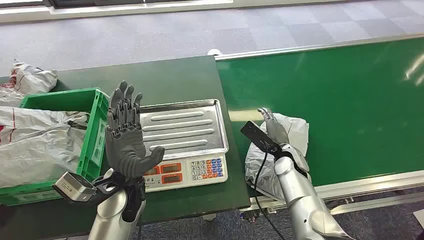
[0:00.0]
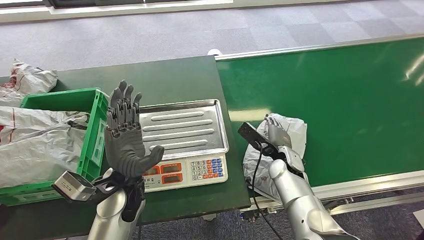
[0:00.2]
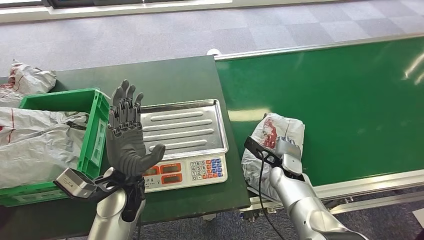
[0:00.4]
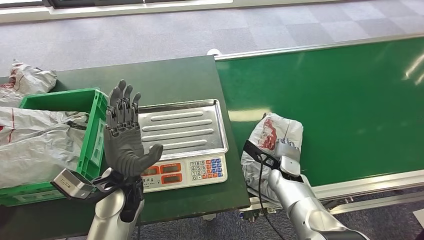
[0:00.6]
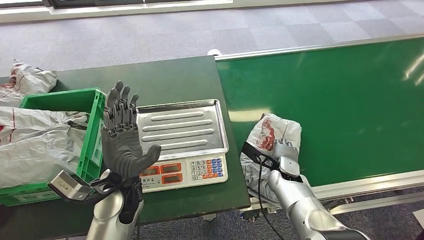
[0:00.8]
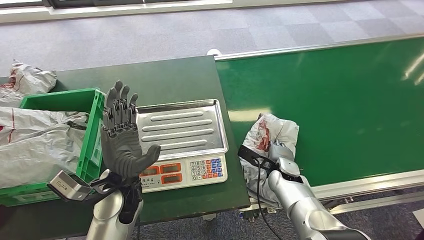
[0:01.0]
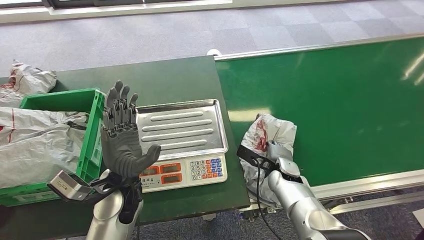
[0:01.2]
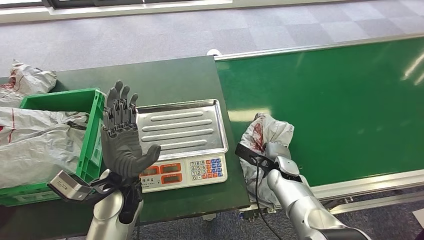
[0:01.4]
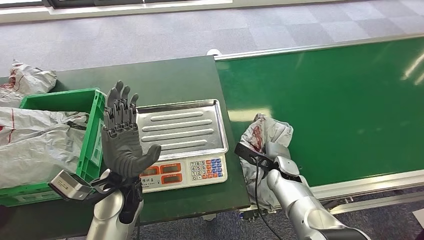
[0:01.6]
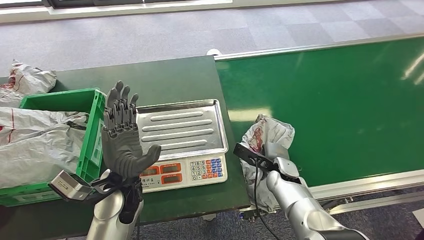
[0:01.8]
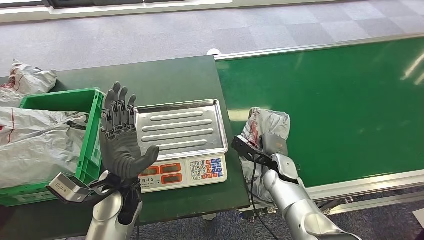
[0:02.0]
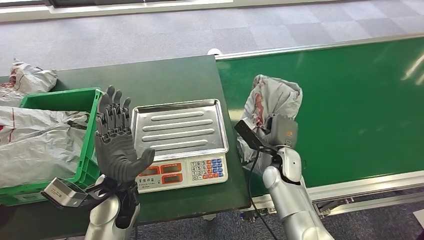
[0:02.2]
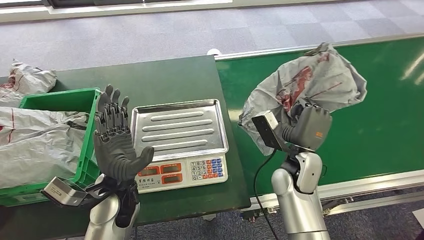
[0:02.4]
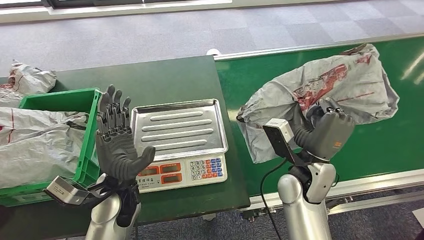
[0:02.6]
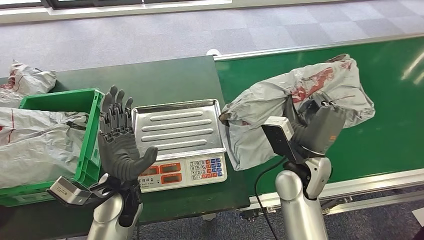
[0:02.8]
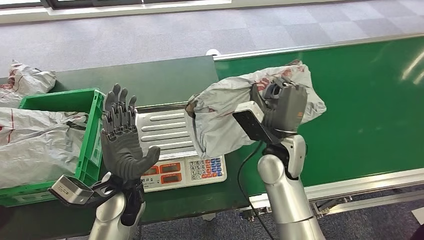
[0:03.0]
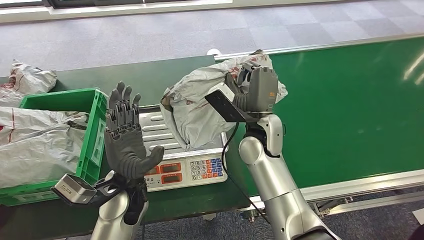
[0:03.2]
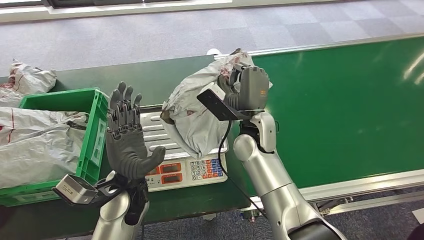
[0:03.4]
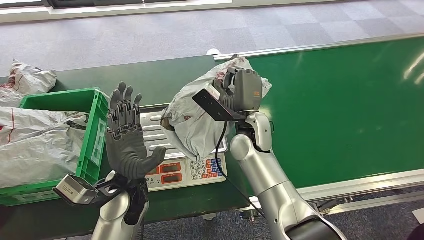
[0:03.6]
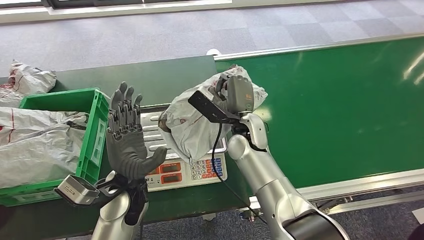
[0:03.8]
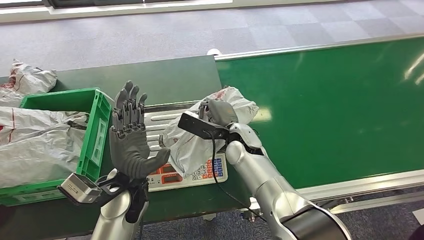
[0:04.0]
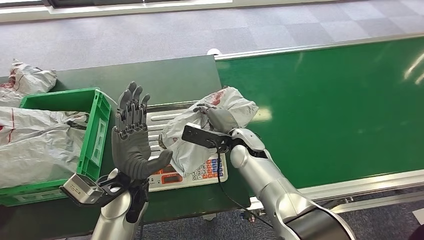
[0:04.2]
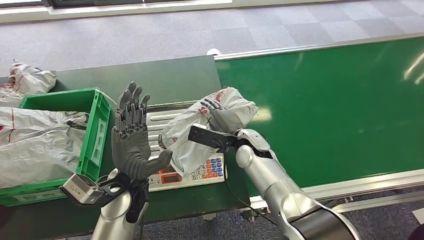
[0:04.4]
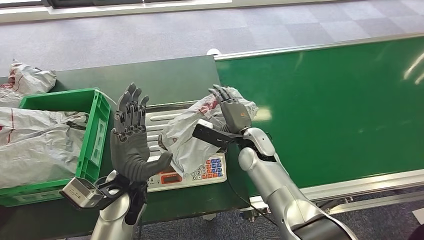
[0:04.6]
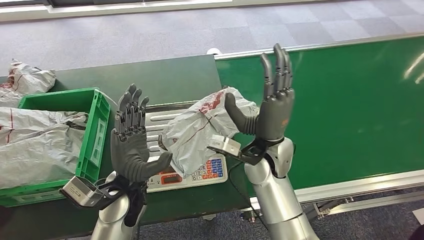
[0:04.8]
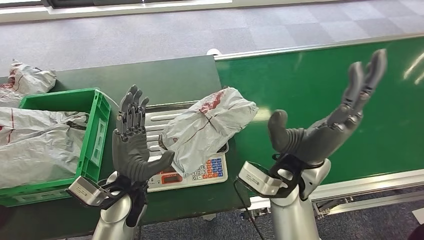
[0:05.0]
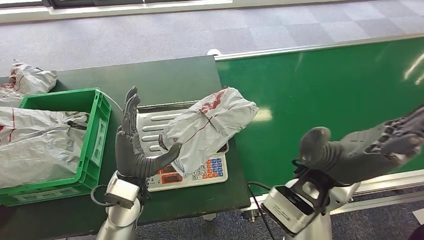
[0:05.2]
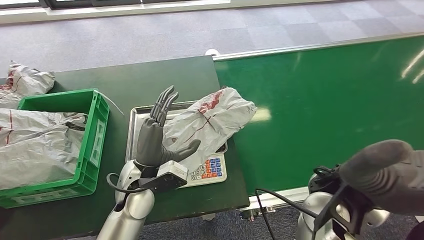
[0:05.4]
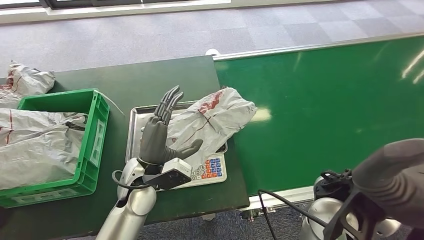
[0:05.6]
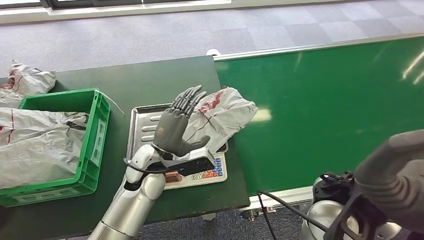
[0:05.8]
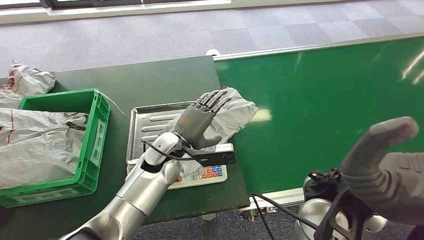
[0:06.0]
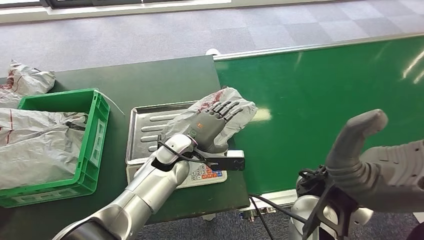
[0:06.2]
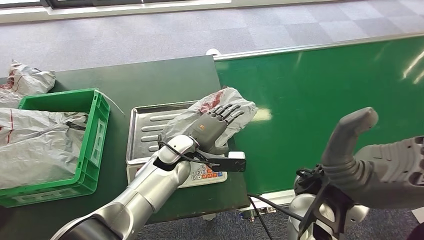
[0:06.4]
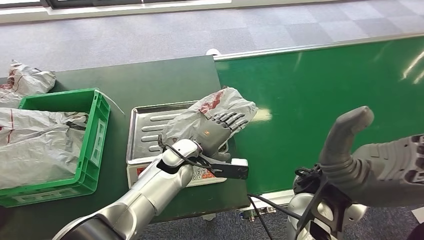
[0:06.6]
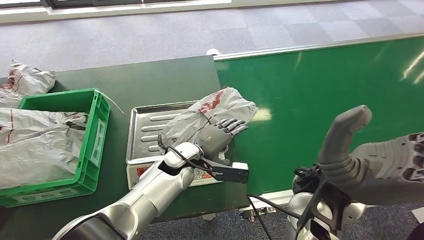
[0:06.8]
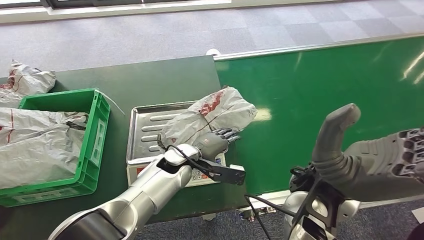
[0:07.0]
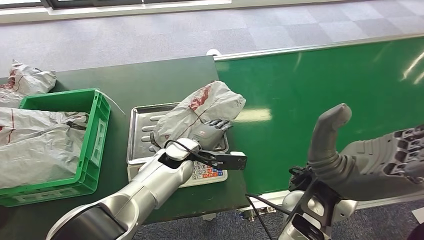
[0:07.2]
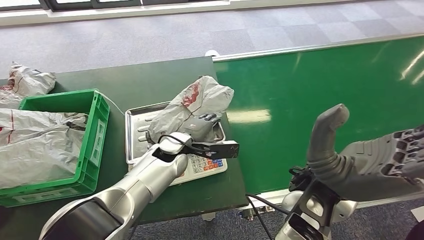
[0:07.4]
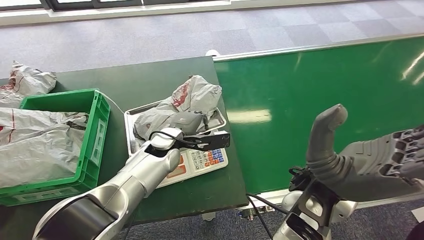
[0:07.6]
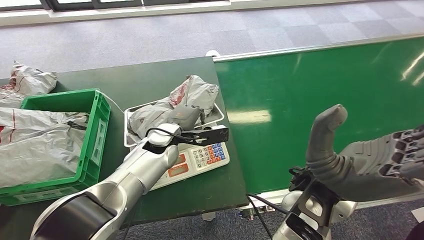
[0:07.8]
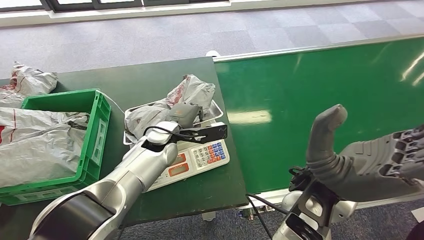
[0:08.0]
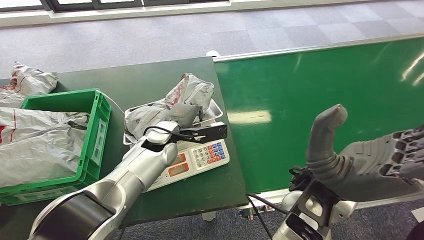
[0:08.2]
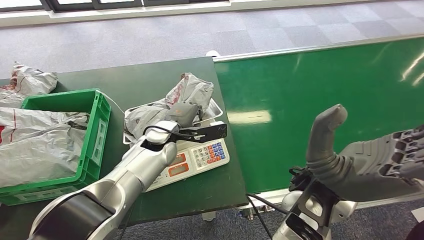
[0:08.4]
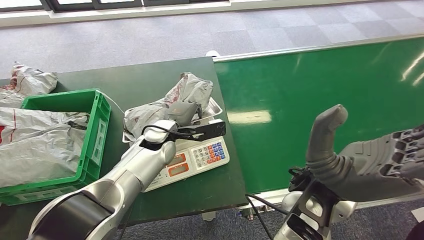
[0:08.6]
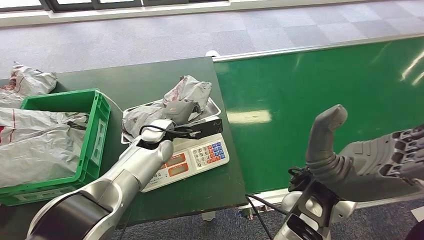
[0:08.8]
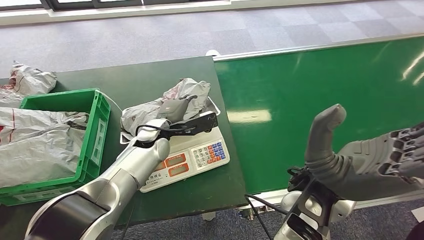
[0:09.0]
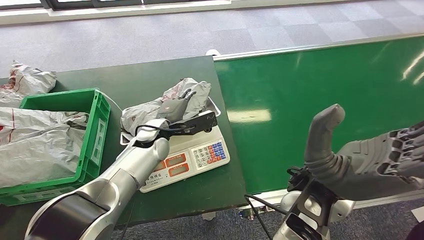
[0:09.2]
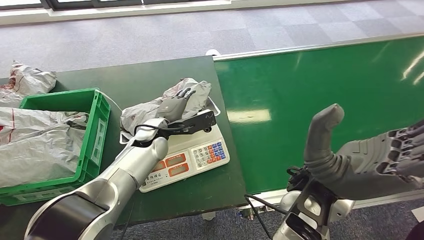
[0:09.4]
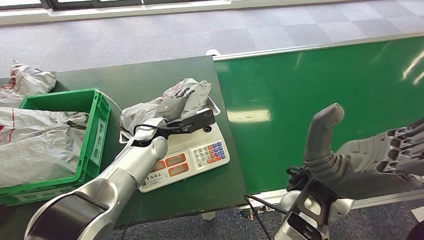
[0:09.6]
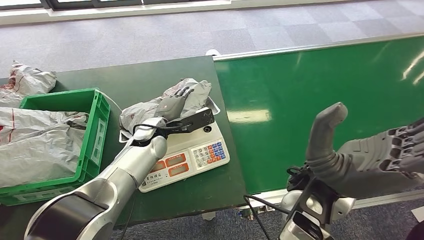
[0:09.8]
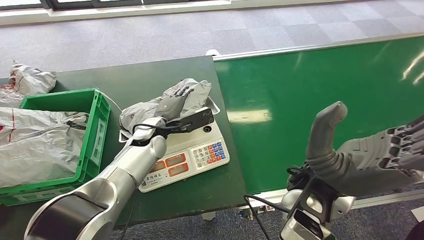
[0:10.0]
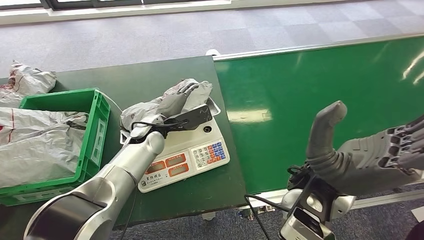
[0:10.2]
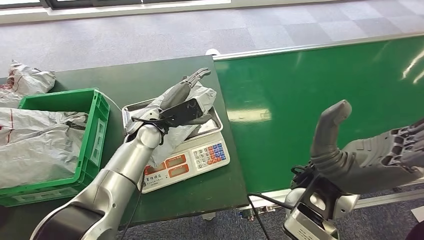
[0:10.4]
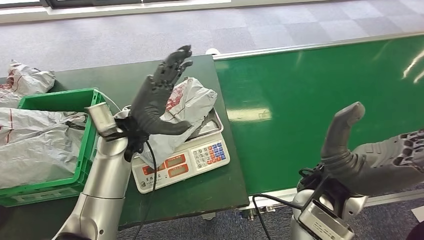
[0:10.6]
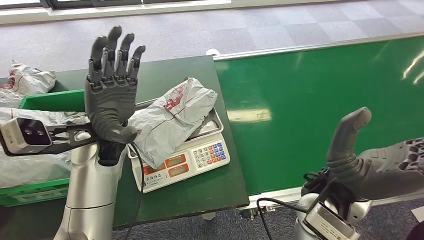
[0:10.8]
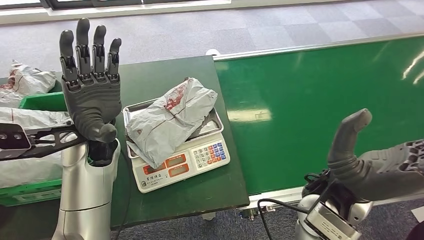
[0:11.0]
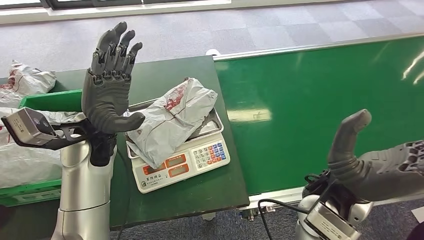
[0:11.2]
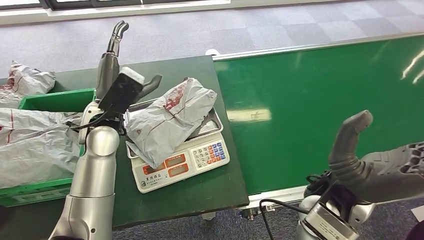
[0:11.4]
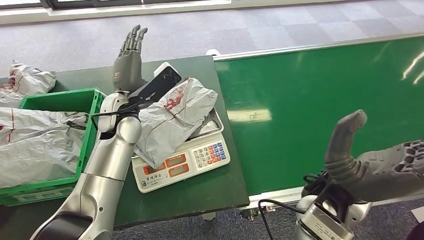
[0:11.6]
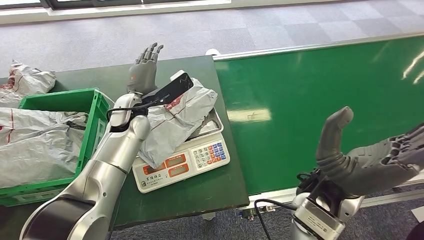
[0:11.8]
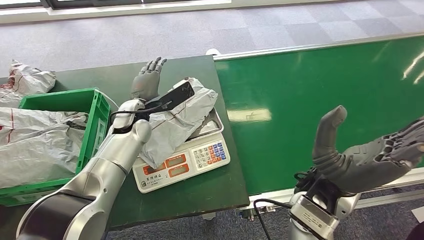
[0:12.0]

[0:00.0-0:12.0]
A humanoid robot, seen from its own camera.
Task of the whole recording: Weigh the package on the weighing device and place it in the left basket.
Step, 0:00.0 to 0:03.0: Pick up the package from the conveyor belt.
Step, 0:03.2 to 0:06.0: Place the package onto the inbound machine.
0:01.6 to 0:03.0: The right hand is displaced upward by roughly 15 cm.
0:03.0 to 0:04.4: The right hand goes some 10 cm downward and to the left.
0:07.6 to 0:09.0: The hands stay close to where they were, moving slightly.
0:10.4 to 0:12.0: The left hand travels upward and back again, about 10 cm each way.

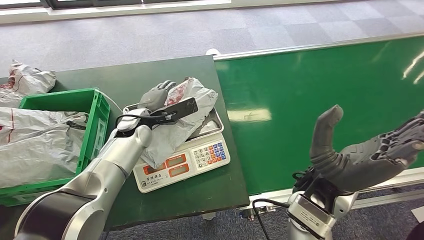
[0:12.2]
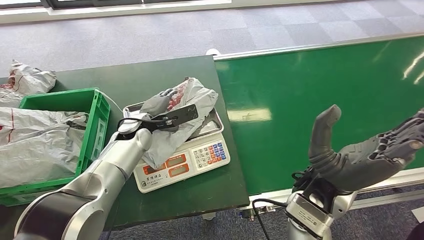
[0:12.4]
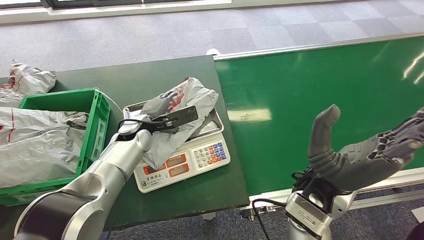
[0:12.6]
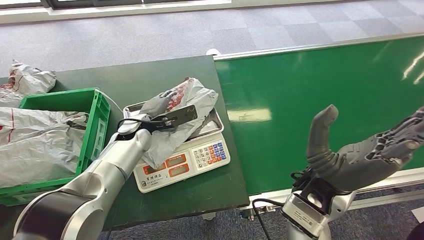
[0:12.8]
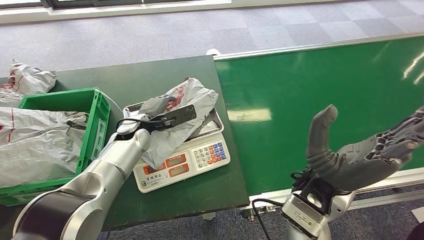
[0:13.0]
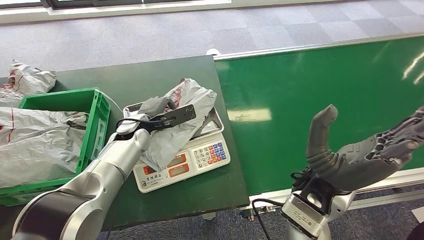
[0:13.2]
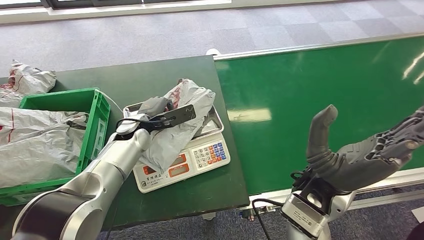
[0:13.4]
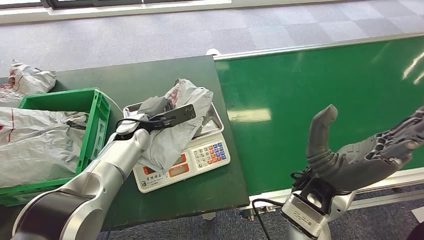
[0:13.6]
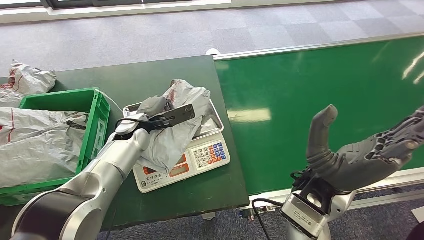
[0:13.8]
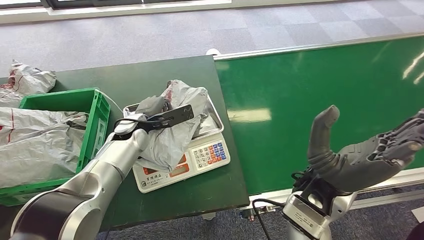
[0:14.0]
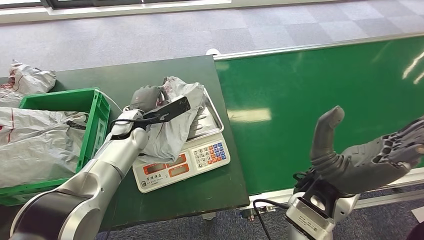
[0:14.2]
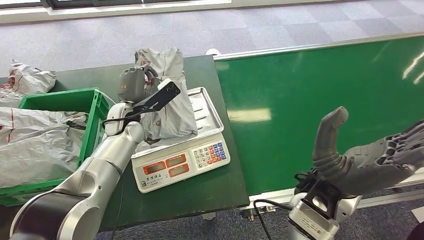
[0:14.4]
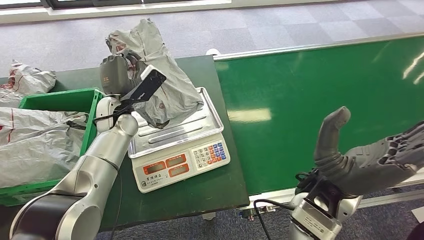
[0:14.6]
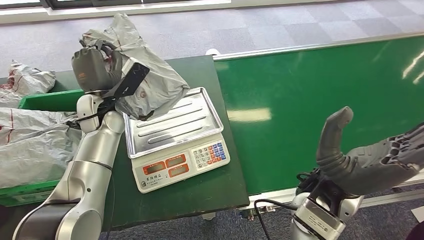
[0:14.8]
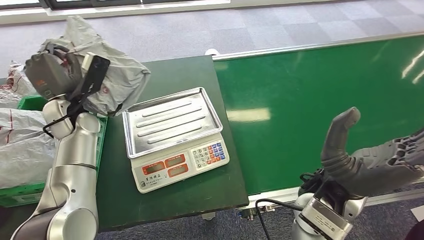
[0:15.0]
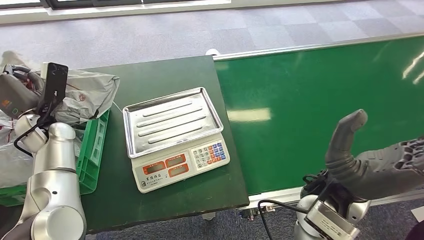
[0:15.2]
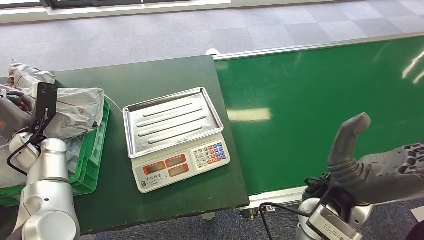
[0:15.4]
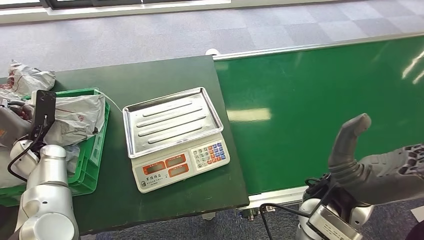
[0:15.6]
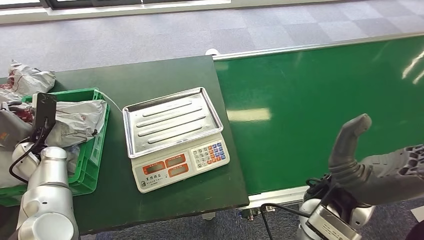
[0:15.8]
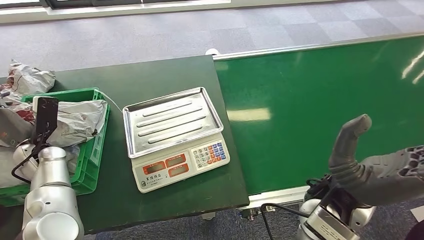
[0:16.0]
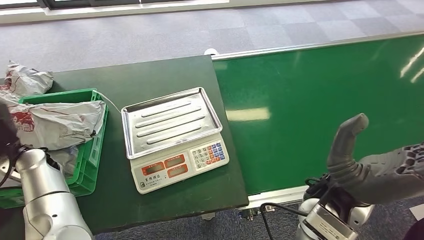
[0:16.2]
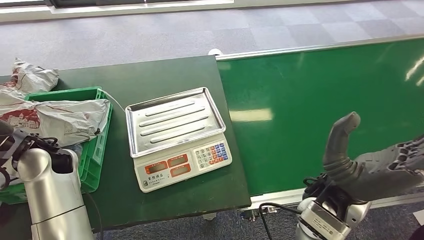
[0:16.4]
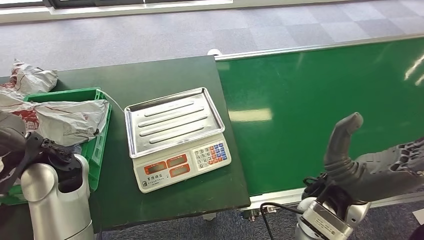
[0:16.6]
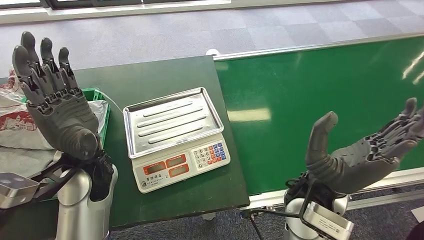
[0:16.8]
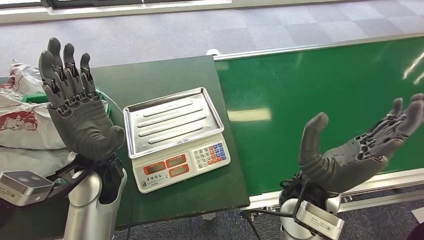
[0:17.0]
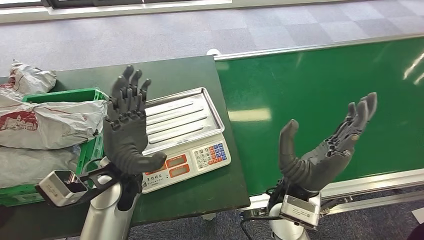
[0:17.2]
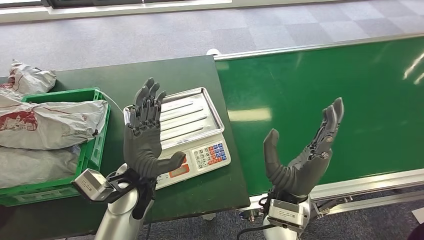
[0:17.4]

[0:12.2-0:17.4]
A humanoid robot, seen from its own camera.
Task of the whole recording: Weigh the package on the weighing device and place it in the left basket.
Step, 0:12.2 to 0:14.8: Pick up the package from the inbound machine.
Step, 0:15.0 to 0:17.4: Place the package into the parcel locker.
0:12.2 to 0:14.0: There are only small adjustments of the hands.
